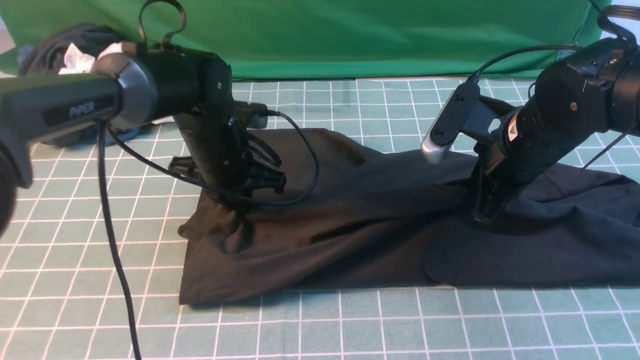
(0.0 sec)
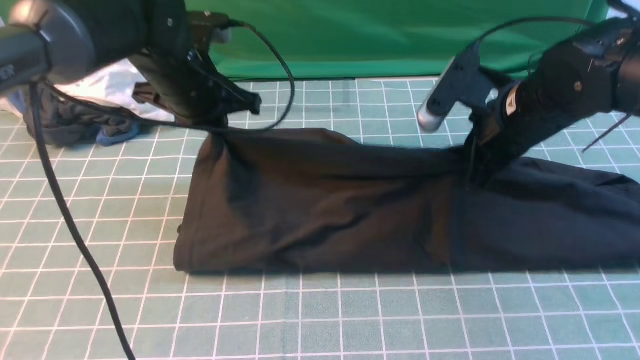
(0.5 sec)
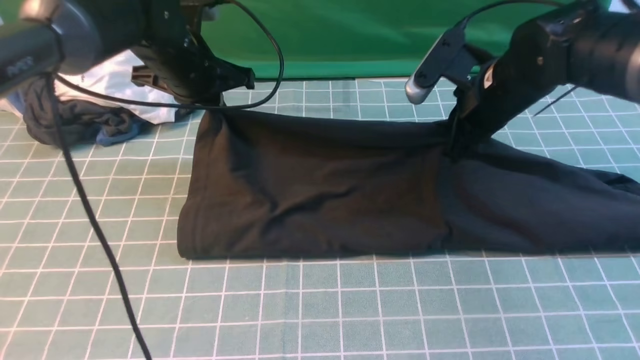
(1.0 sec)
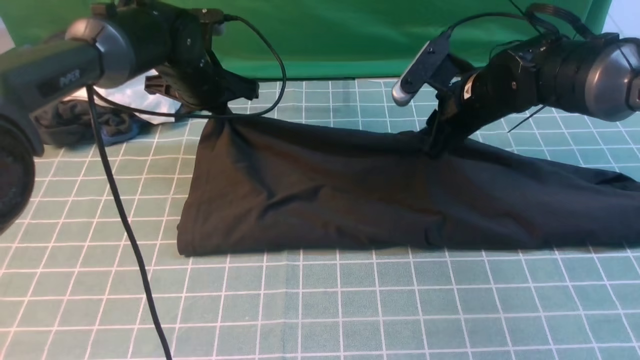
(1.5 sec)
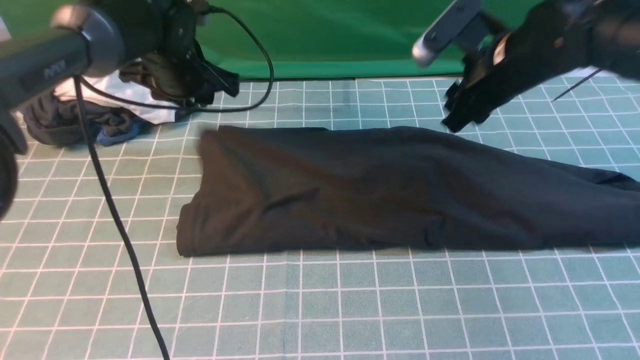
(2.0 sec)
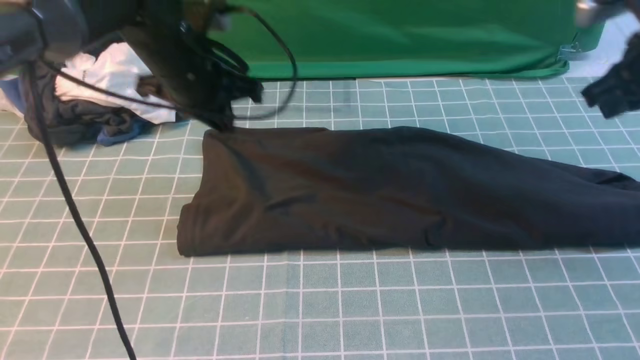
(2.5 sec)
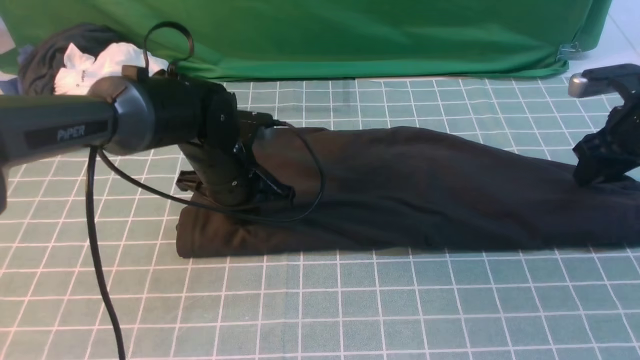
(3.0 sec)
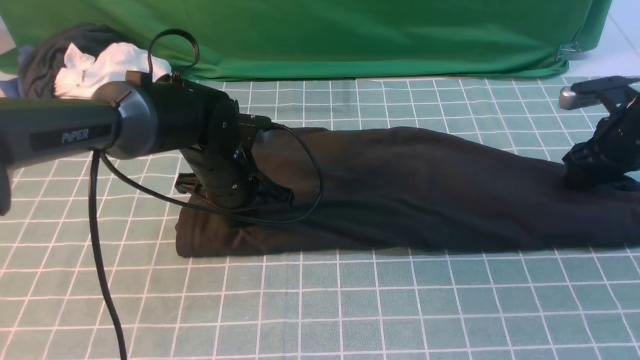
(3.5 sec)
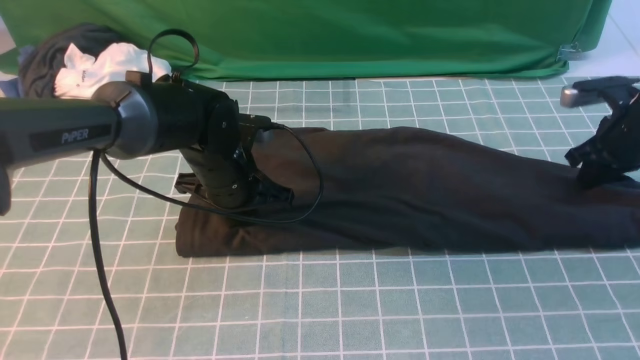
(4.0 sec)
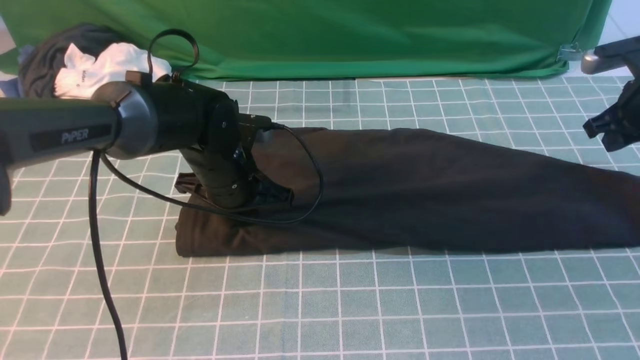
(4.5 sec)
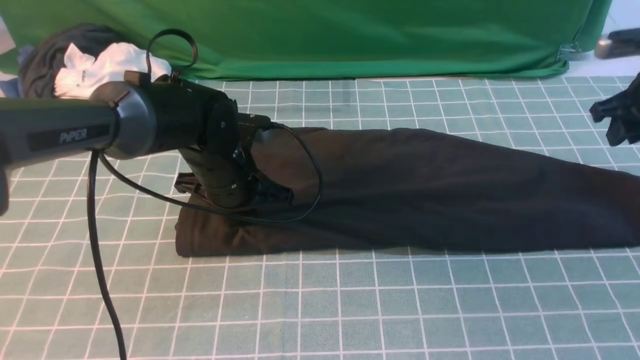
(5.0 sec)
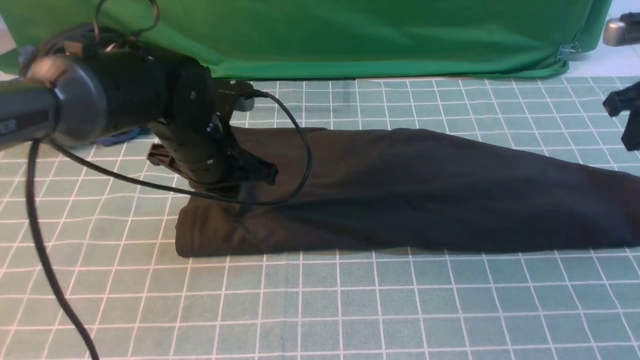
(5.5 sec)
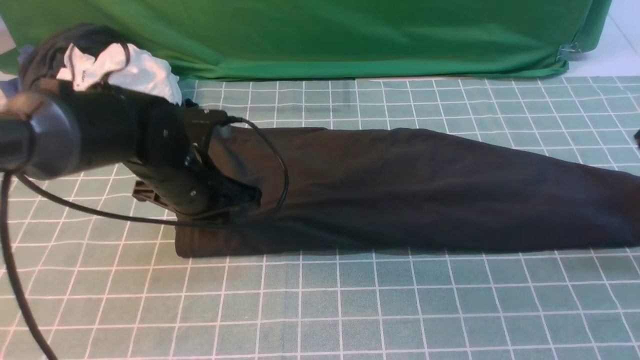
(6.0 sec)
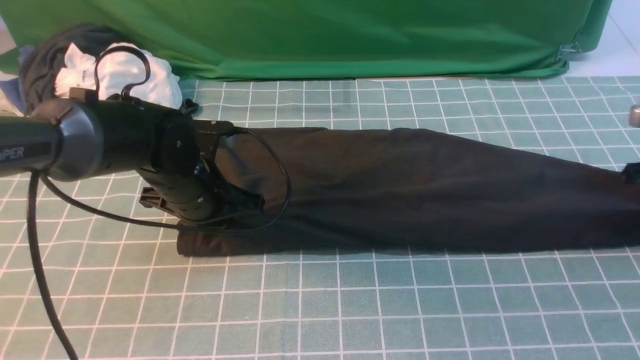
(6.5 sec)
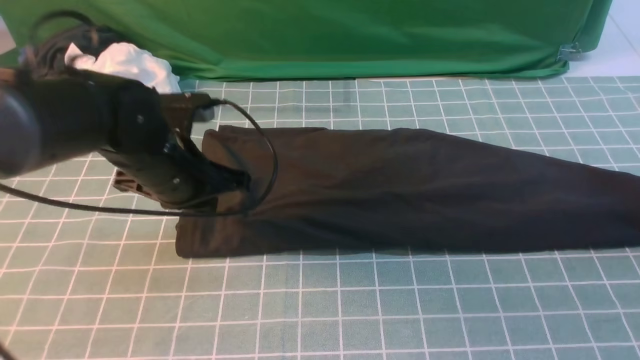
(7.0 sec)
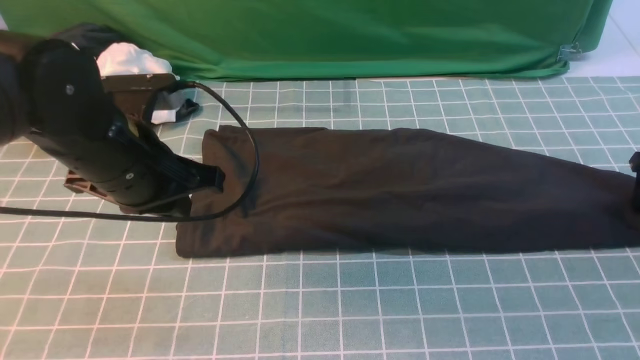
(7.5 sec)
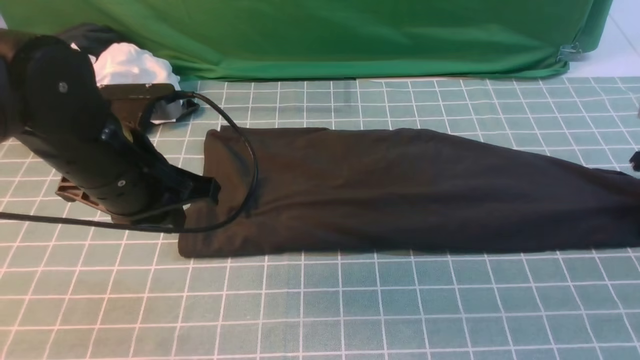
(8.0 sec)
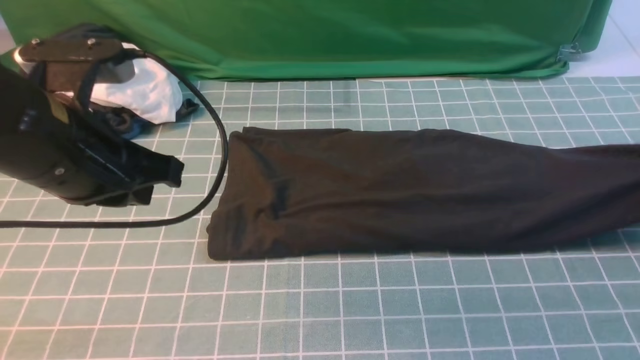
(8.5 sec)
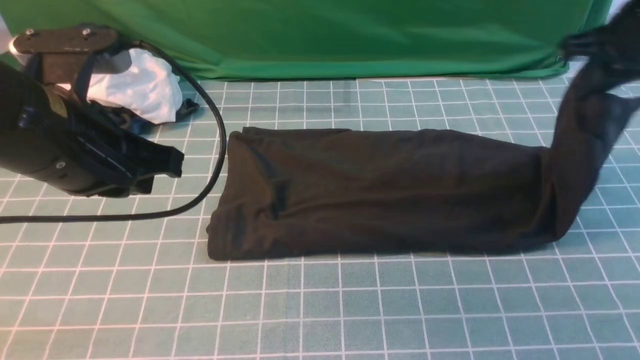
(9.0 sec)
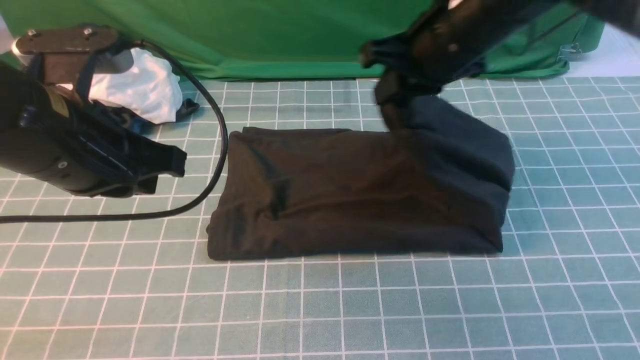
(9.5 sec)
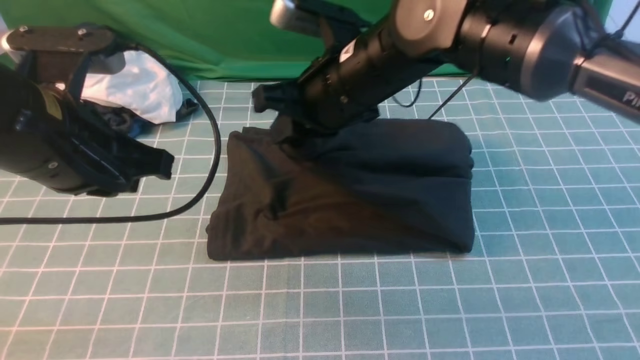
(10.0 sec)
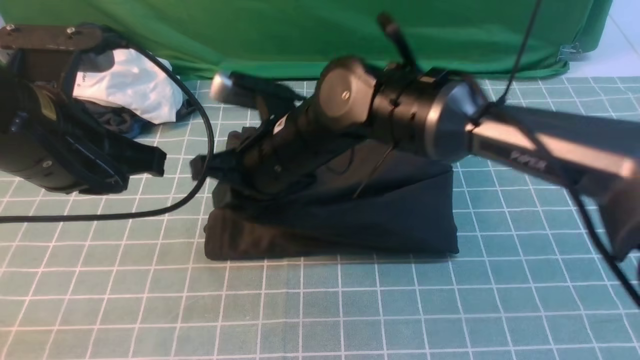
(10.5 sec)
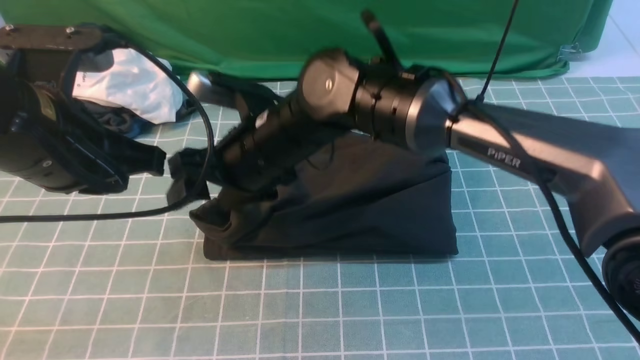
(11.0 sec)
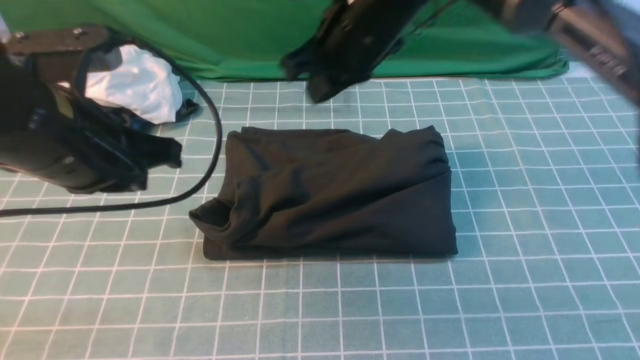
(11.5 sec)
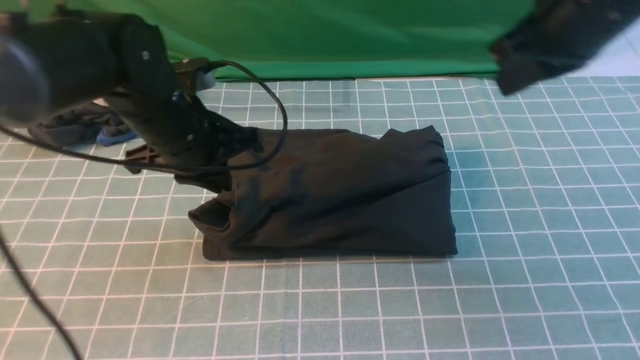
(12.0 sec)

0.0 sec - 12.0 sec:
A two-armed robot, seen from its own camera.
Step, 0.0 sec - 2.0 sec: use both arms to drag the lower edge of the fabric forward and fold it over the upper edge.
Step, 2.5 sec - 8.0 sec: use the right arm to clamp the right edge of the fabric.
Step, 8.5 sec - 11.5 sec: use the right arm to drag the right edge of the fabric to the left and folds it over the left edge.
0.0 sec - 2.0 sec: The right gripper travels forward by approximately 5 cm, and opens its fingers, while the left gripper shifts roughly 10 cm forward and to the left, and opens up.
2.0 sec - 4.0 sec: The left gripper shifts about 15 cm backward, downward and to the right, and closes its fingers, while the right gripper moves to the right and downward, roughly 20 cm, and closes up.
4.0 sec - 6.0 sec: The right gripper is displaced backward and upward by roughly 10 cm. The left gripper ends up approximately 5 cm from where it was.
6.0 sec - 8.0 sec: The right gripper moves to the right and downward, some 10 cm, and opens, then closes again, while the left gripper is displaced upward and backward by about 10 cm.
8.0 sec - 10.0 sec: The left gripper shifts by some 5 cm; the right gripper moves to the left, approximately 40 cm.
10.0 sec - 12.0 sec: The left gripper heads forward and downward, covering roughly 15 cm. The right gripper is displaced to the right and upward by approximately 20 cm, and opens and closes again.

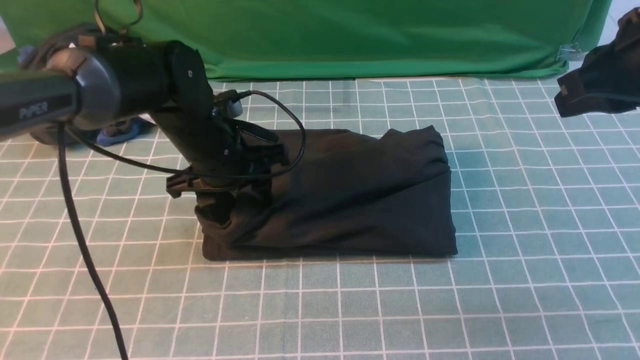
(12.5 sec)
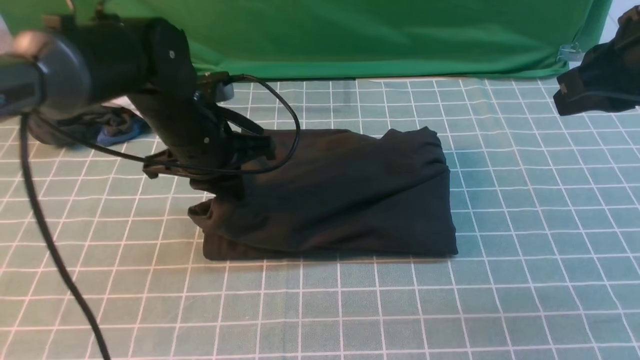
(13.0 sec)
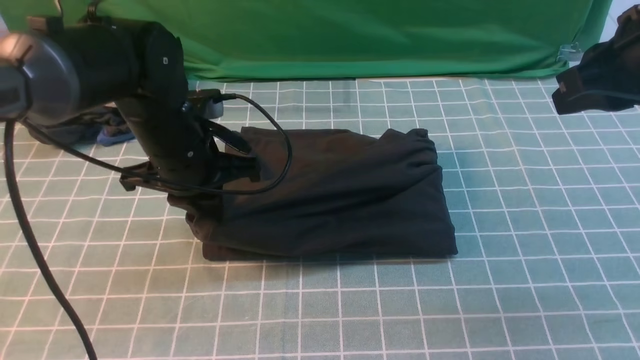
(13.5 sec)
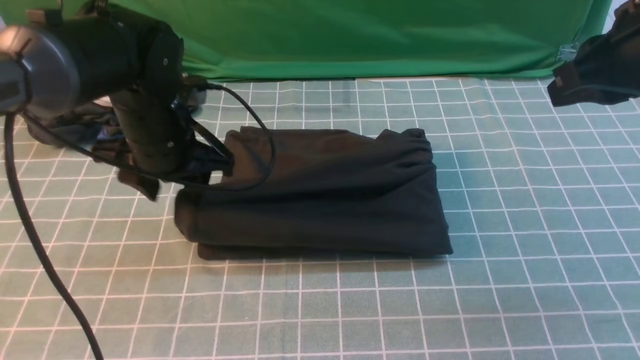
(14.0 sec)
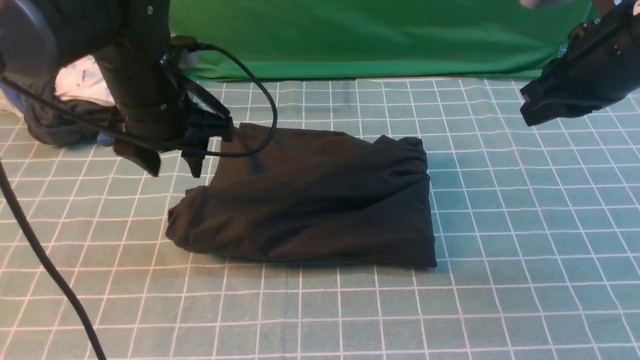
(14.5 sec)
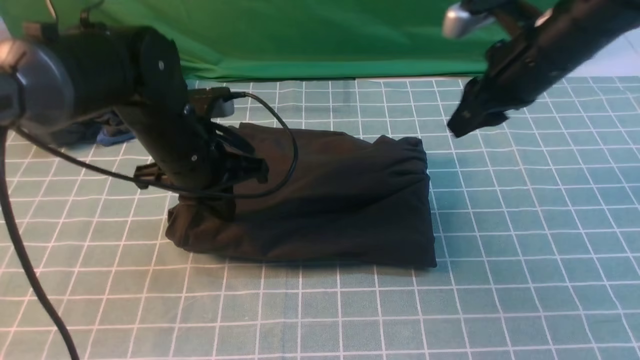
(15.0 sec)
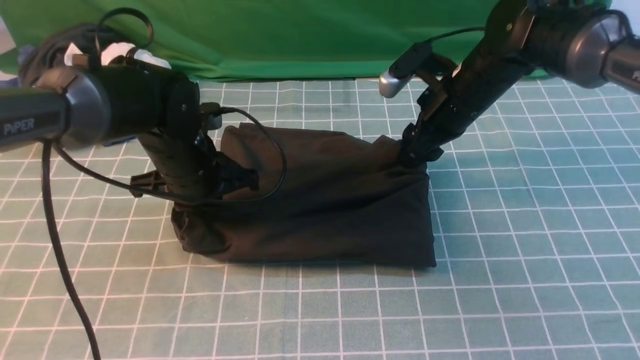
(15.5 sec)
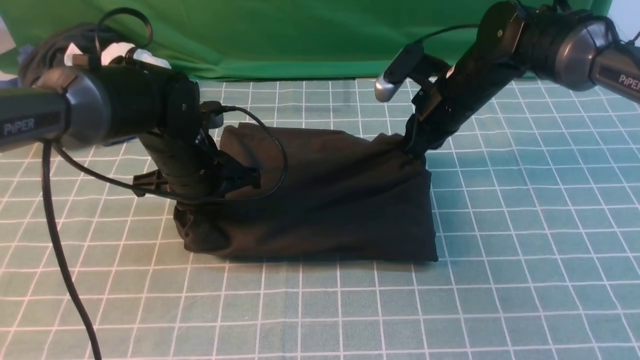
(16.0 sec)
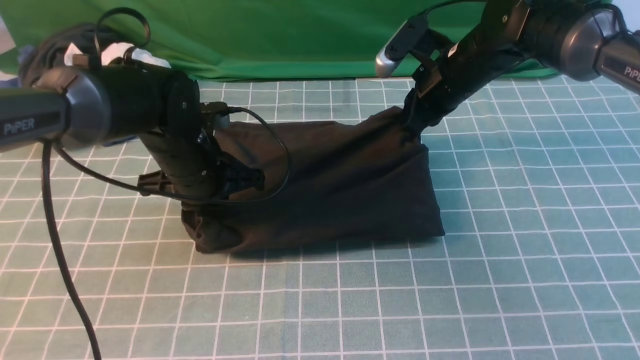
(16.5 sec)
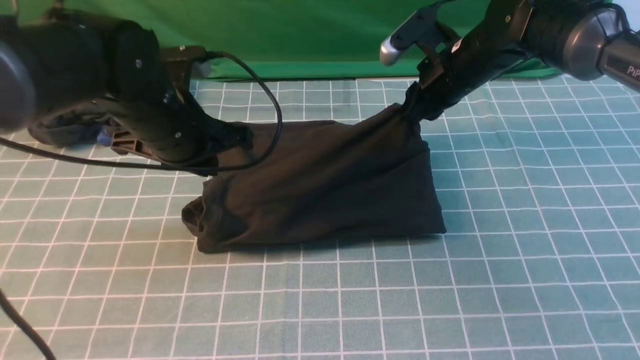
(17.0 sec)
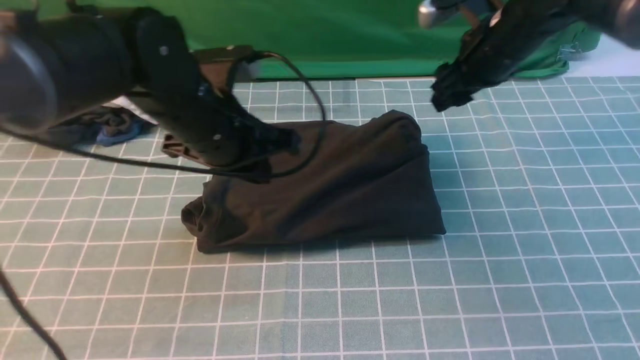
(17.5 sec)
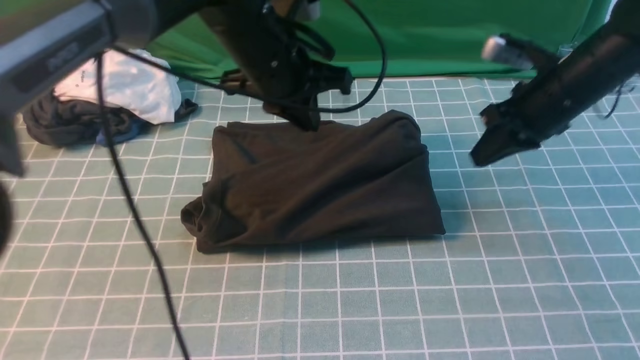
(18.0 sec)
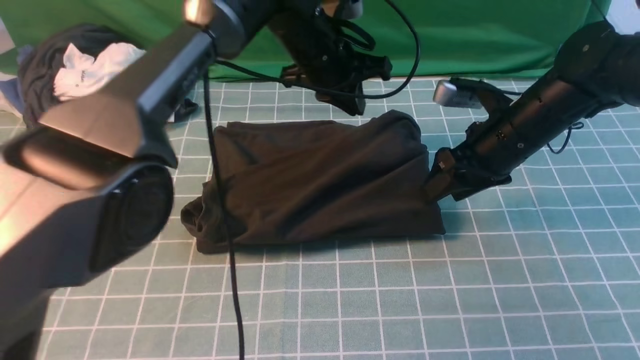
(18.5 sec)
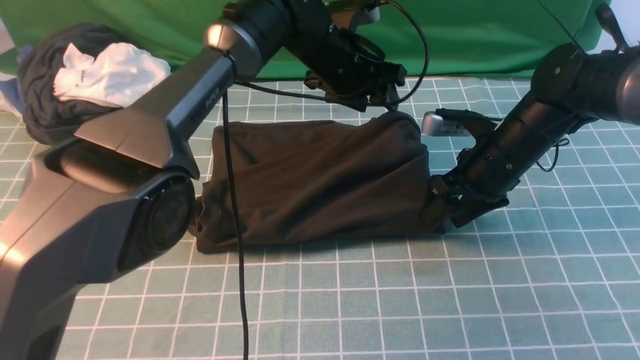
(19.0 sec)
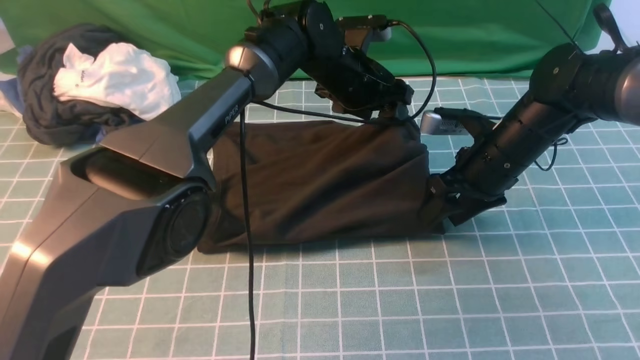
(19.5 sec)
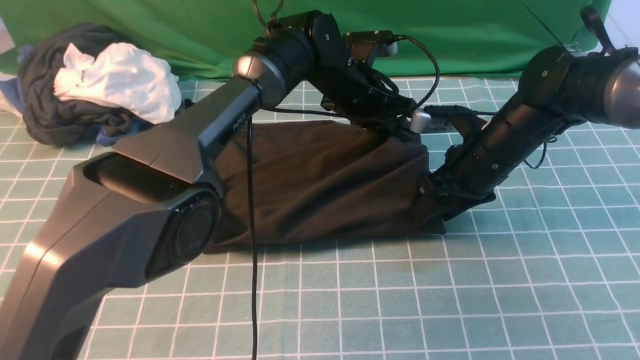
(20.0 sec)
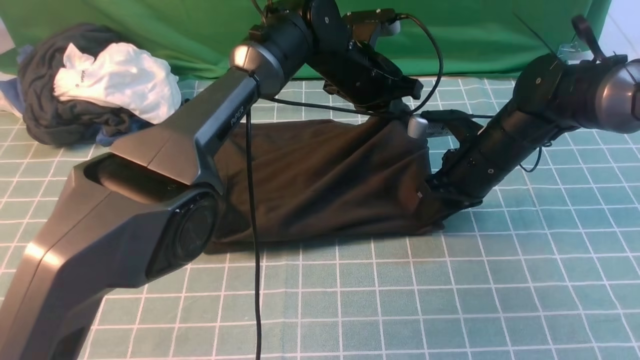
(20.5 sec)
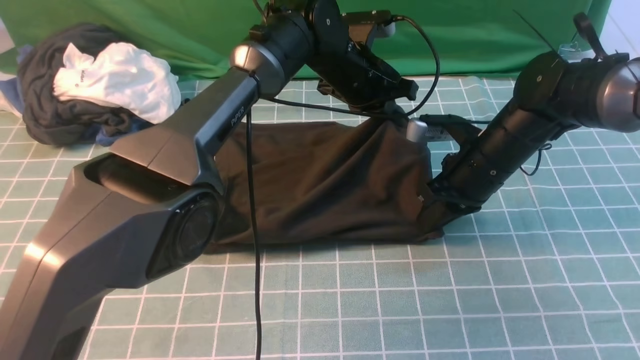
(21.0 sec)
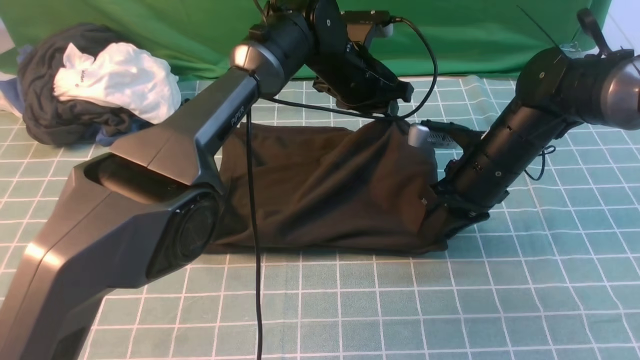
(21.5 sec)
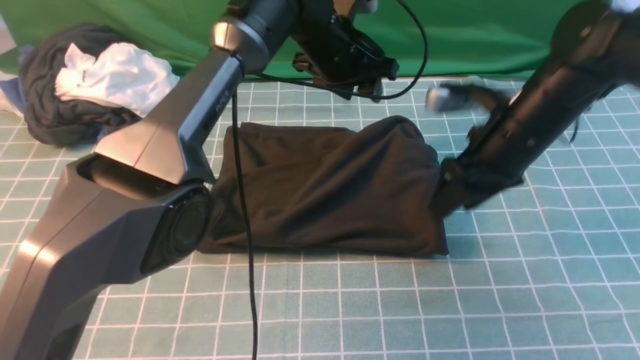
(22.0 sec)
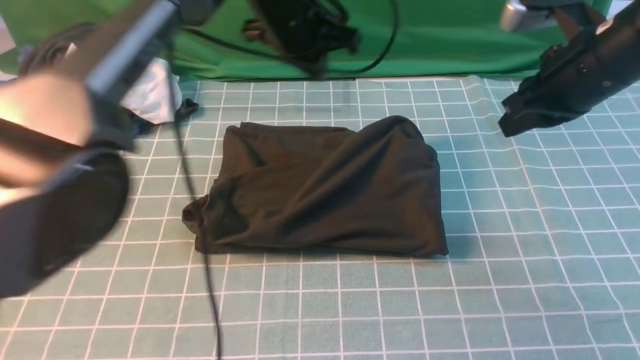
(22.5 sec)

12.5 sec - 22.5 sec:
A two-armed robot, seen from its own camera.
12.5 sec - 14.5 sec: The left gripper moves upward, about 5 cm, and closes, then opens again; the right gripper moves approximately 5 cm.
14.5 sec - 16.5 sec: The right gripper goes approximately 20 cm forward, downward and to the left, and opens and closes again. The left gripper moves downward, roughly 10 cm, and closes.
16.5 sec - 18.5 sec: The right gripper is displaced backward and to the right by some 10 cm, and opens up. Meanwhile the left gripper moves to the right, forward and upward, about 20 cm.
18.5 sec - 20.5 sec: The right gripper closes its fingers; the left gripper changes place by roughly 5 cm, and opens, then closes once more.
20.5 sec - 22.5 sec: The right gripper heads upward and to the right, covering roughly 15 cm, and closes; the left gripper moves upward and to the left, approximately 10 cm, and opens, then closes again.
